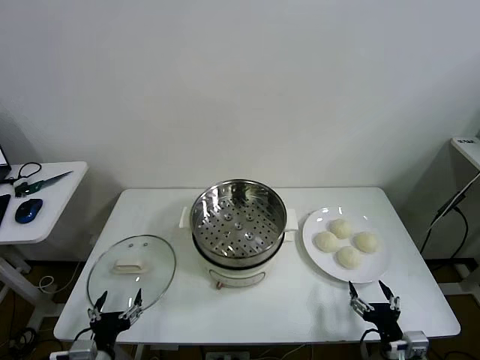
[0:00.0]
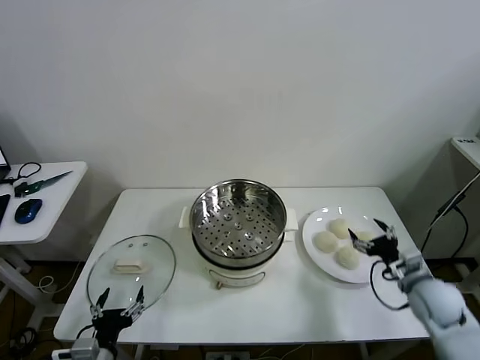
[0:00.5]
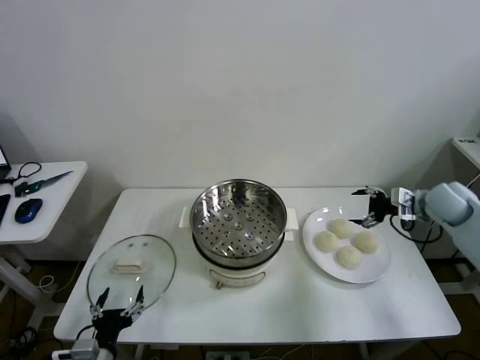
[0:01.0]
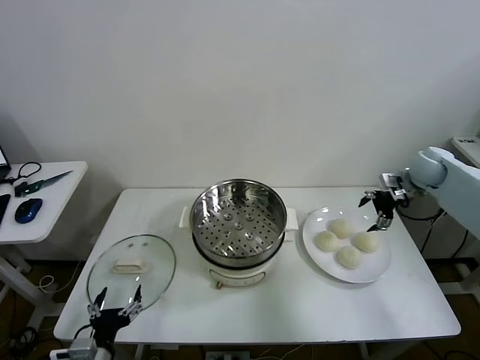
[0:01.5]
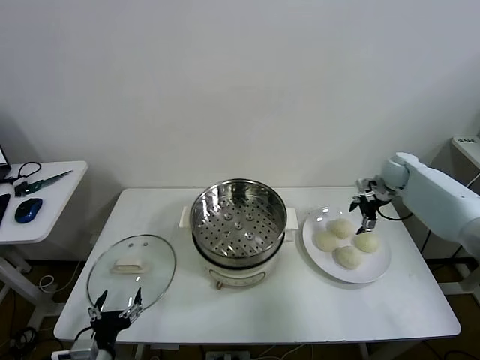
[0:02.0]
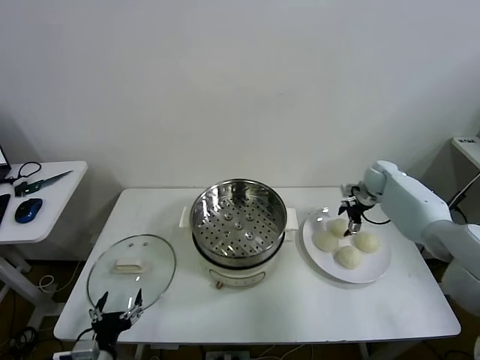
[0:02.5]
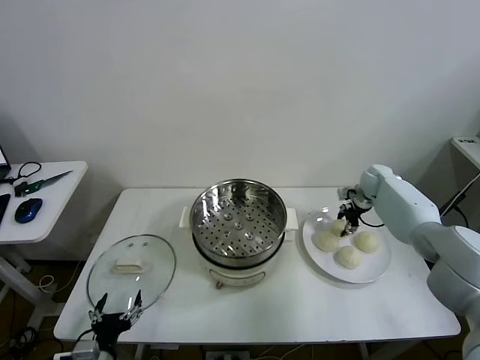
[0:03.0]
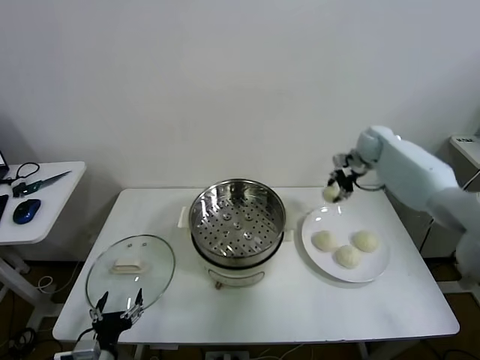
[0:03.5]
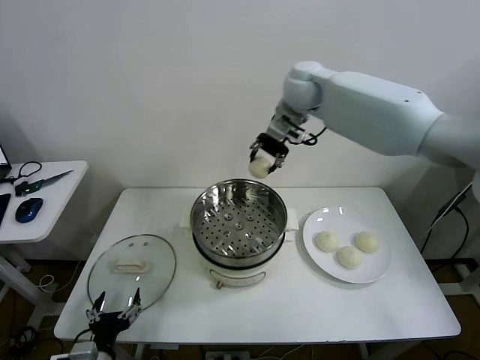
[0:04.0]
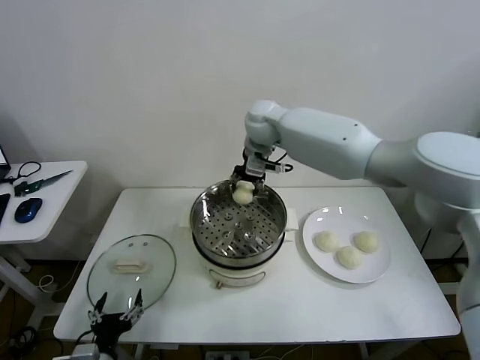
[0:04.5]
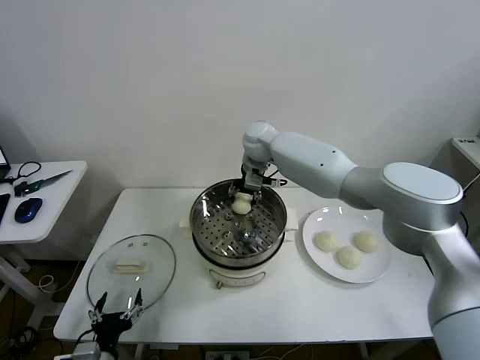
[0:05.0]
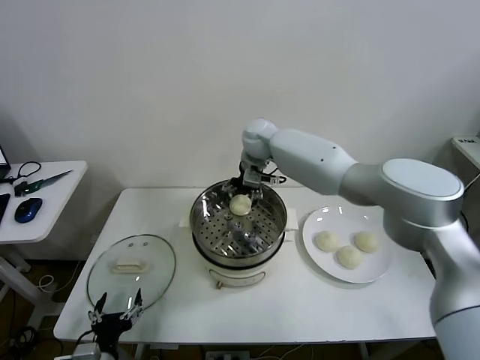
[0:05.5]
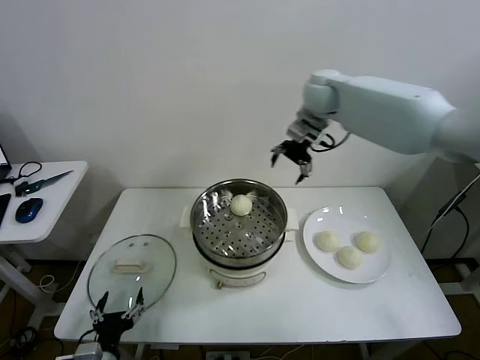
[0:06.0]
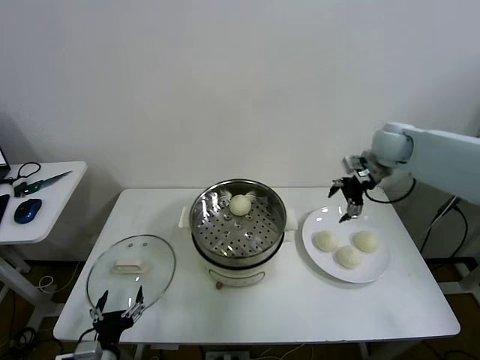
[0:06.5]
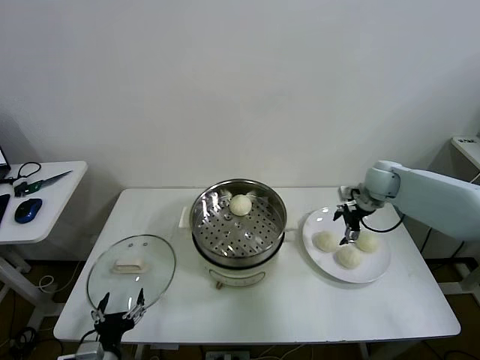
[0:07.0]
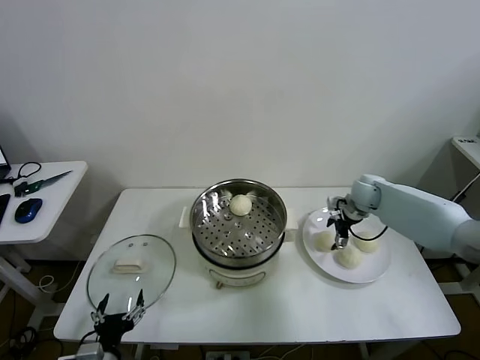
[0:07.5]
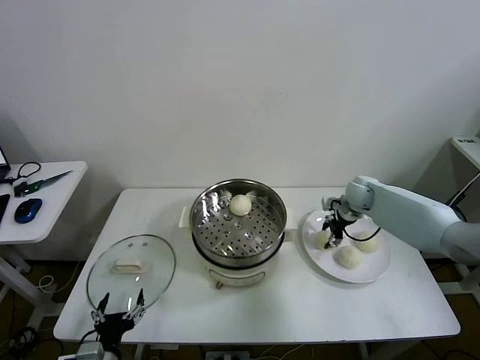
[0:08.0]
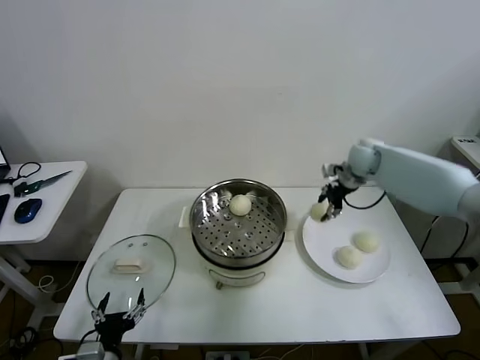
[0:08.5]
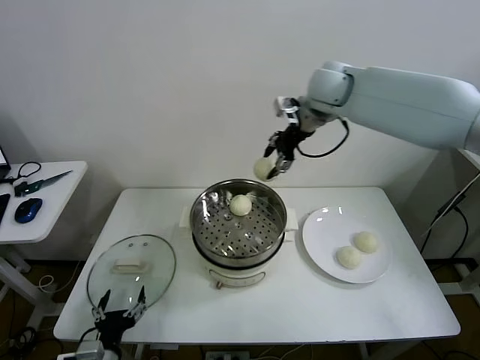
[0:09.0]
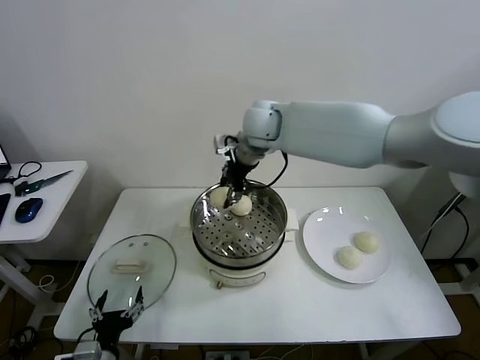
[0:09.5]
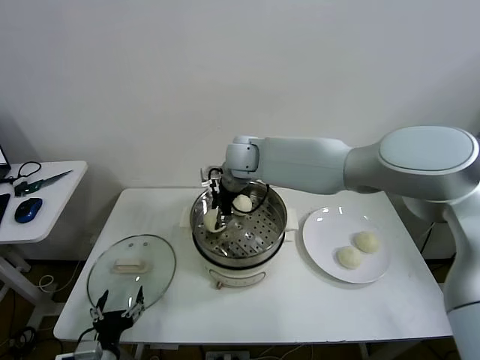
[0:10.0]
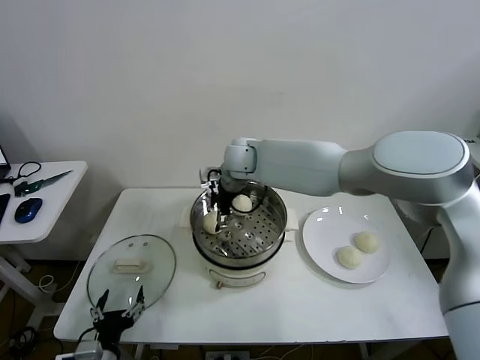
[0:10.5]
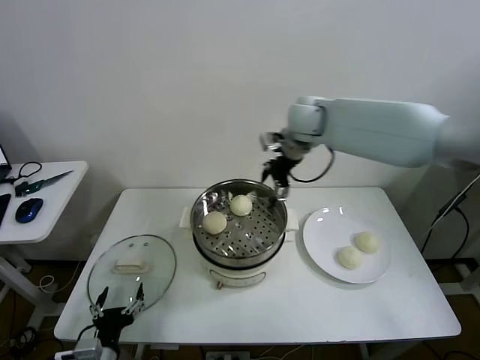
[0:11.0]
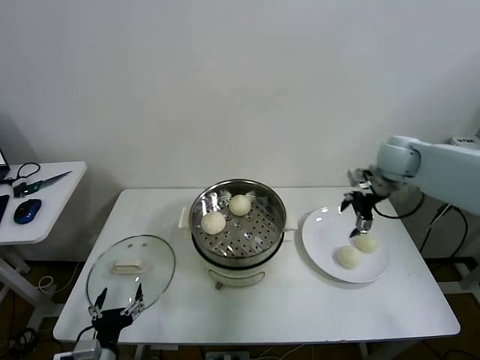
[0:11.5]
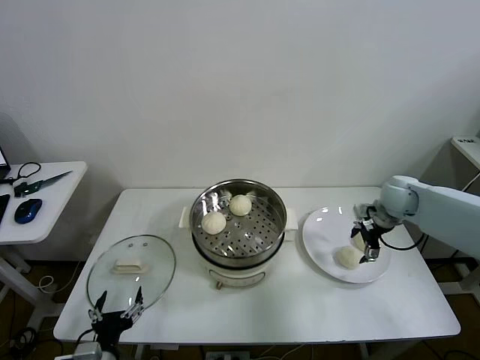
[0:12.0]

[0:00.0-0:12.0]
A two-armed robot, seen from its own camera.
Task of the whole recording: take steamed baozi put them in steamer then cover it.
Step, 0:00.0 to 0:02.5: Grasp the baozi in the plate with right gripper.
Step, 0:03.0 to 0:05.5: Place the baozi on the steamer with right gripper.
Step, 0:06.0 to 0:07.5: Grasp the baozi in the plate with right gripper.
Step, 0:08.5 to 0:10.0: Place the baozi on the steamer with right gripper.
0:02.0 to 0:04.0: The right gripper goes roughly 40 cm to the left and upward, and closes up.
0:04.0 to 0:06.0: The right gripper heads to the right, covering approximately 15 cm, and opens up.
0:06.0 to 0:08.0: The right gripper shifts roughly 25 cm downward, and closes up.
0:08.0 to 0:10.0: The right gripper moves to the left and upward, some 35 cm.
0:10.0 to 0:12.0: The right gripper shifts about 40 cm to the right, and opens.

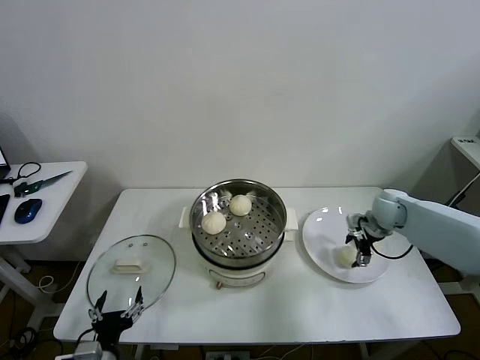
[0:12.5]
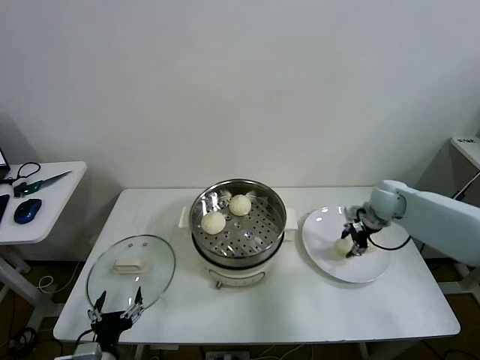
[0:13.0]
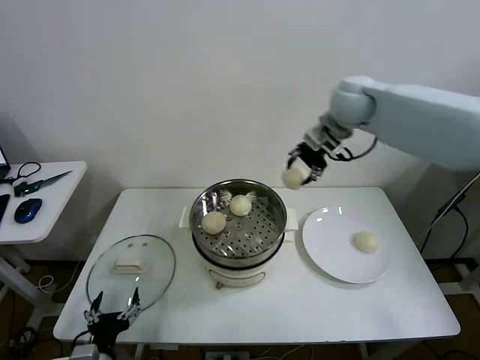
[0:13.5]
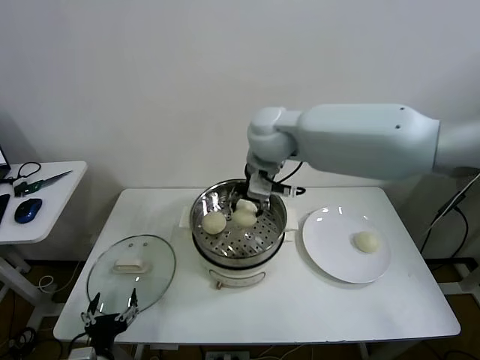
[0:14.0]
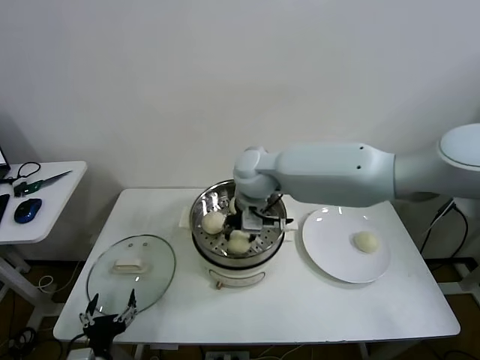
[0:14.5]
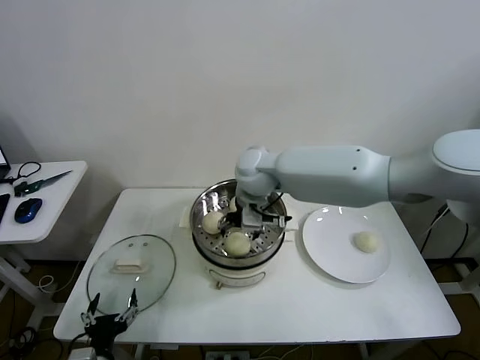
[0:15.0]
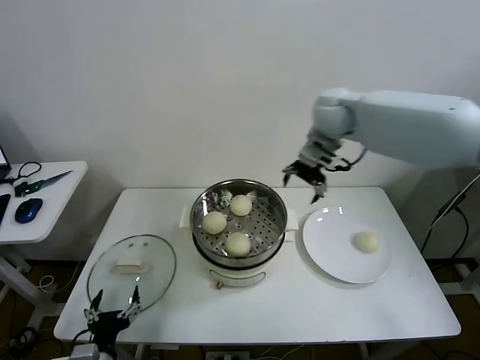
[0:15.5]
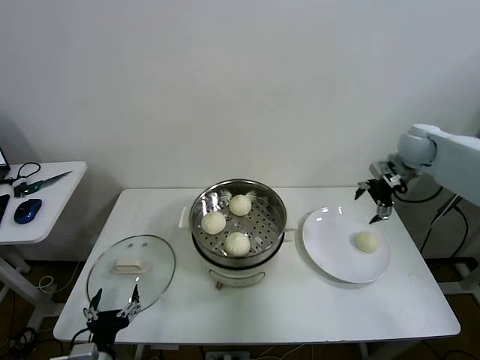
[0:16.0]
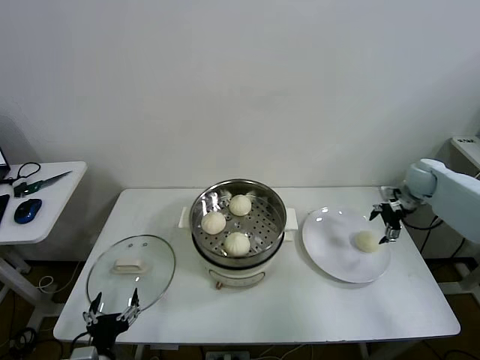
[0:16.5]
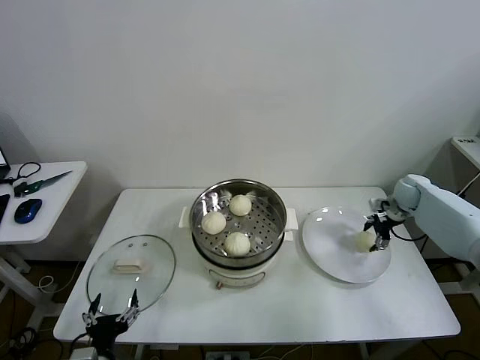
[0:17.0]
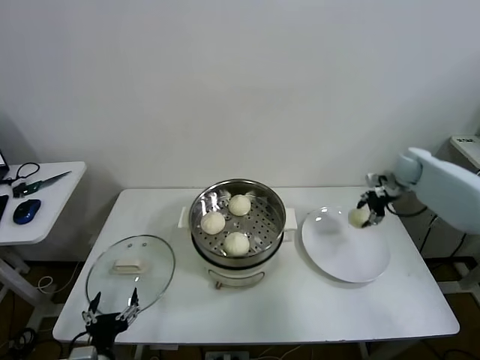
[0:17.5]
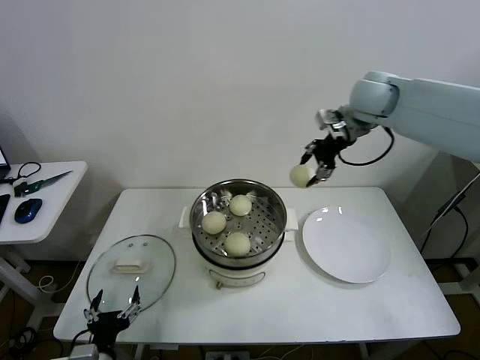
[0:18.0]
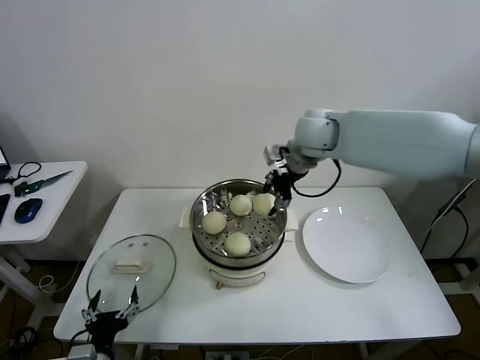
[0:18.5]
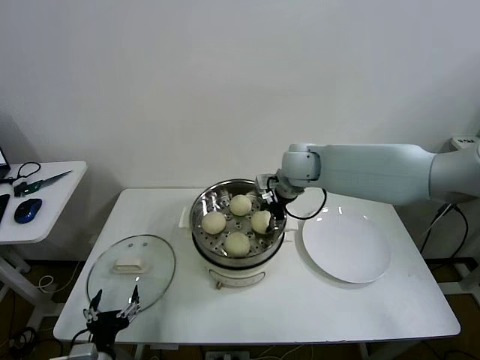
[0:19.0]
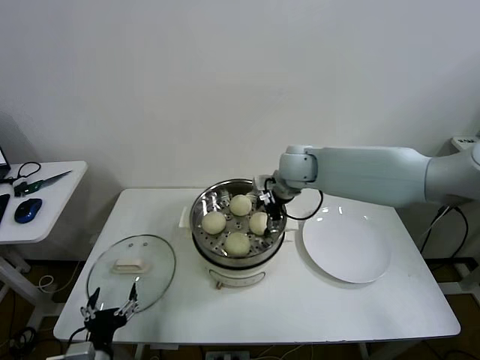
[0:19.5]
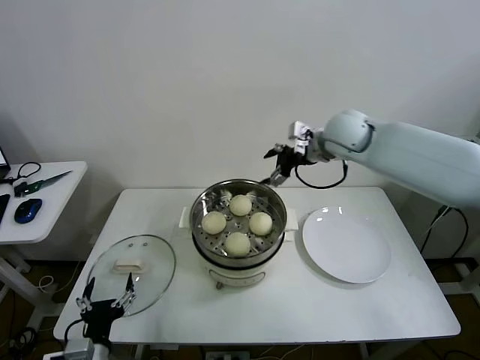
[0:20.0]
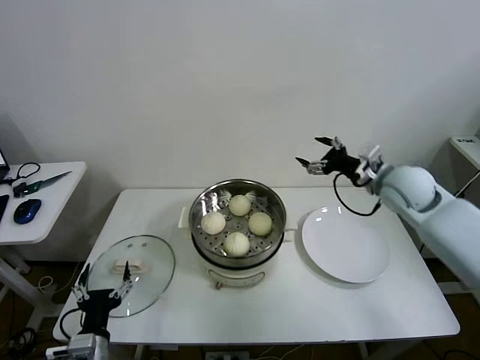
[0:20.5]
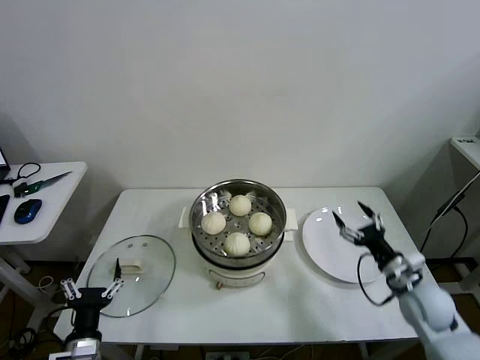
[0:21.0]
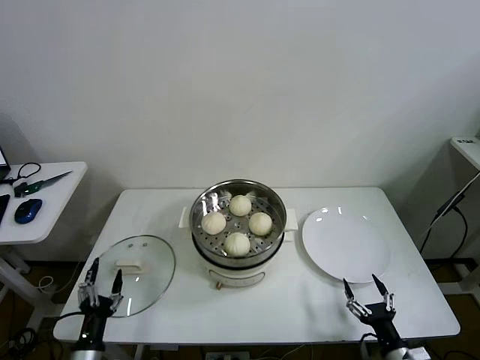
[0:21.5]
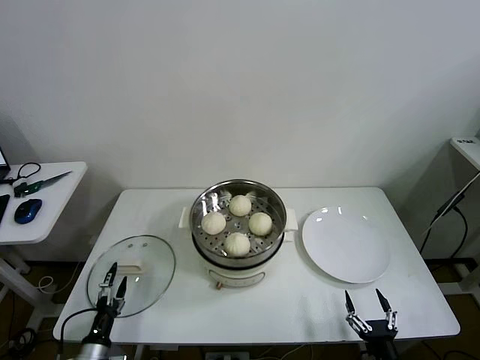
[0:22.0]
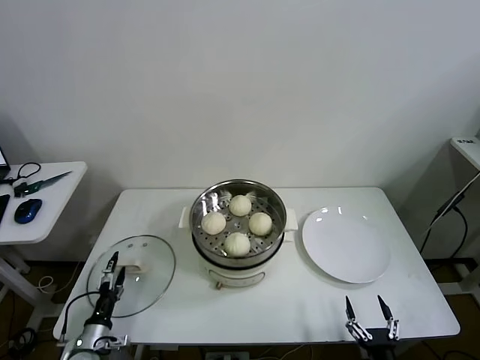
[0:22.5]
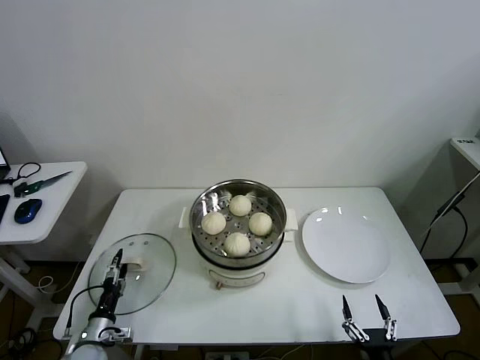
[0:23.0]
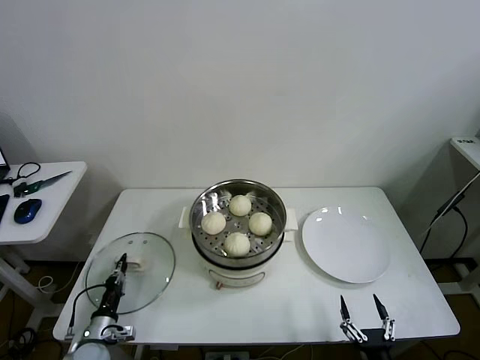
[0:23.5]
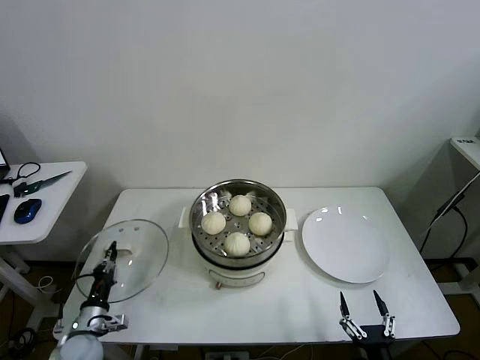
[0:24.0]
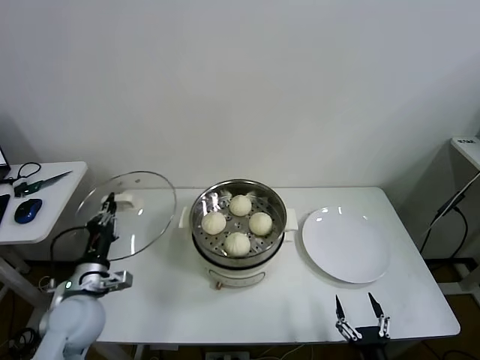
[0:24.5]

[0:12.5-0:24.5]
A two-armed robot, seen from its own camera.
Task of the whole recording: take steamed baozi put them in steamer then cover it.
Step, 0:13.0 to 0:15.0: Place the baozi on the steamer with right gripper.
Step, 0:15.5 to 0:17.0: Grasp the baozi in the plate with right gripper.
Step, 0:17.5 to 0:19.0: Place the baozi on the steamer with right gripper.
Step, 0:19.5 to 0:23.5: Grasp the pot lid with left gripper.
0:12.5 to 0:14.5: The right gripper moves to the left and upward, about 40 cm, and closes.
0:14.5 to 0:16.5: The right gripper is displaced to the right by approximately 40 cm, and opens its fingers.
0:16.5 to 0:18.5: The right gripper shifts roughly 35 cm to the left and upward, and closes up.
0:18.5 to 0:20.5: The right gripper shifts some 20 cm to the right, downward and backward, and opens up.
0:20.5 to 0:22.5: The right gripper shifts roughly 50 cm backward and downward. Meanwhile the left gripper heads downward, to the left and forward, covering about 15 cm.
0:22.5 to 0:24.5: The left gripper goes some 20 cm upward, and closes.

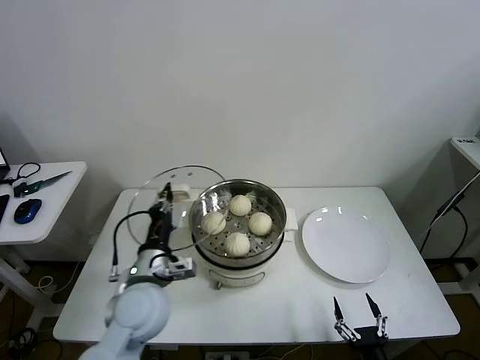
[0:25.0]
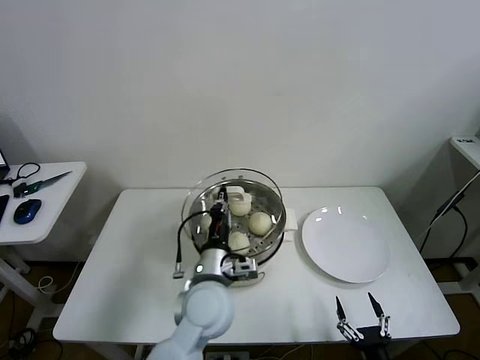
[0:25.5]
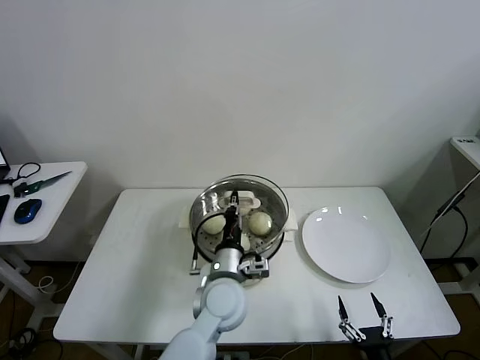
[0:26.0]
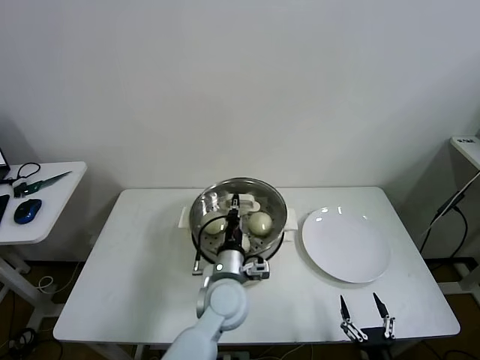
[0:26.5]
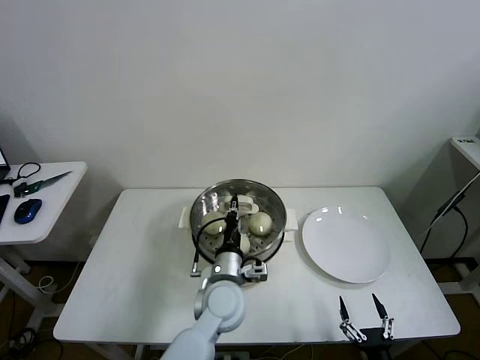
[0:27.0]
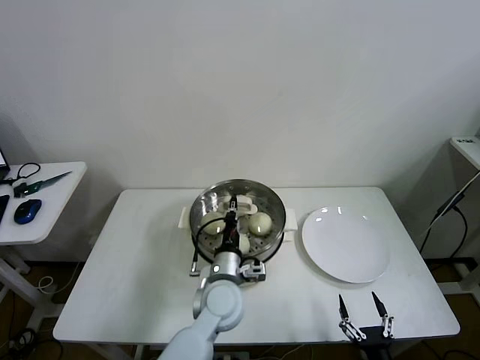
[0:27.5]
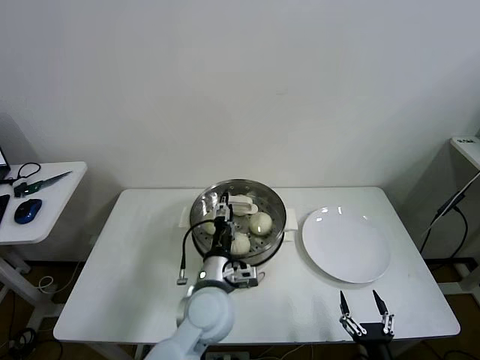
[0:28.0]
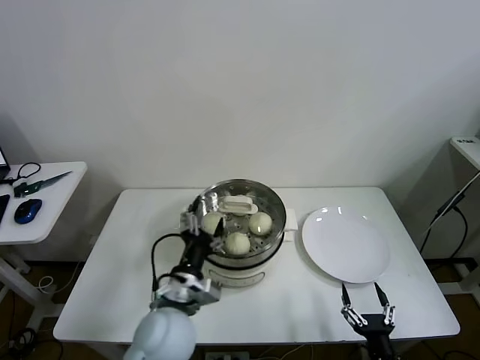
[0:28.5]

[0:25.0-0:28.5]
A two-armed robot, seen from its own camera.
Task of the whole recording: take steamed baozi put them in steamer then cover it.
Step, 0:25.0 to 0:28.0: Place the pot lid on the steamer with left gripper.
0:25.0 to 0:27.0: The left gripper heads to the right and downward, covering about 15 cm.
0:27.0 to 0:28.5: The left gripper goes about 10 cm to the left, backward and upward, and opens up.
